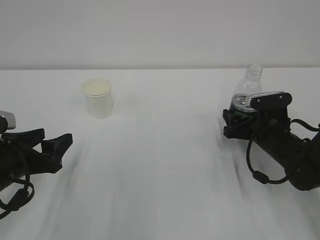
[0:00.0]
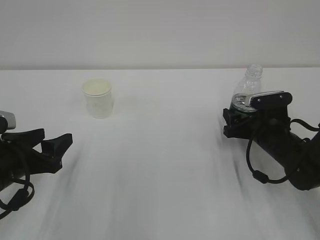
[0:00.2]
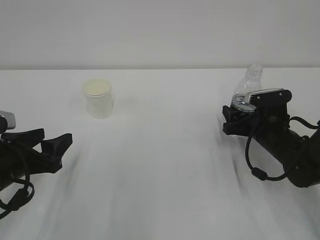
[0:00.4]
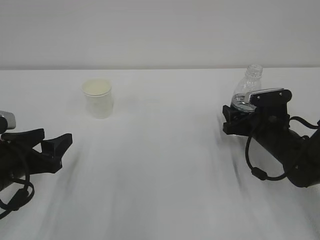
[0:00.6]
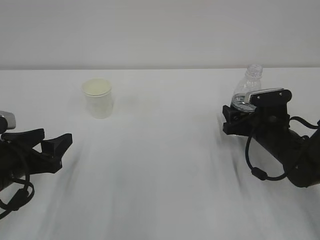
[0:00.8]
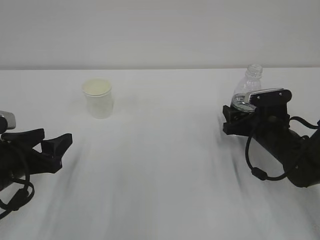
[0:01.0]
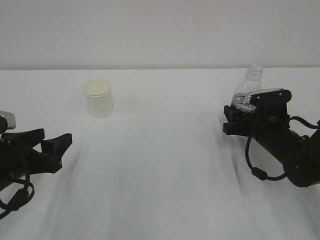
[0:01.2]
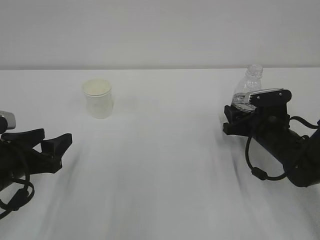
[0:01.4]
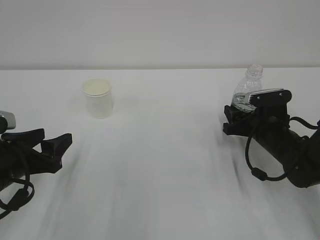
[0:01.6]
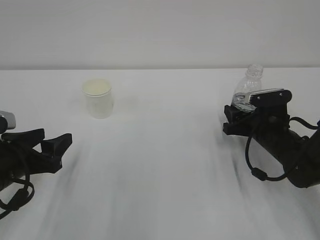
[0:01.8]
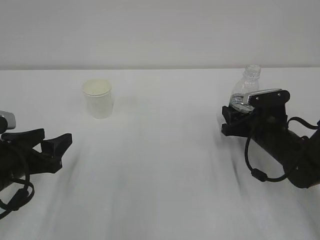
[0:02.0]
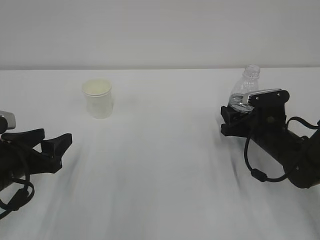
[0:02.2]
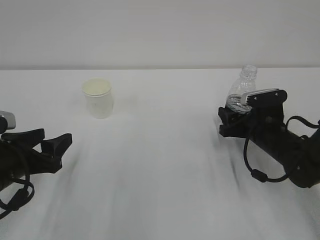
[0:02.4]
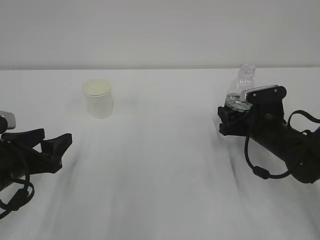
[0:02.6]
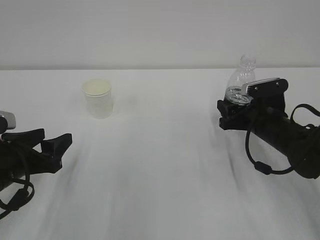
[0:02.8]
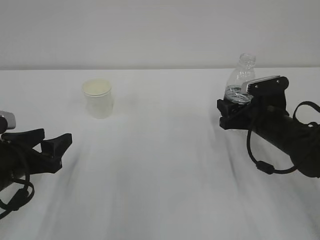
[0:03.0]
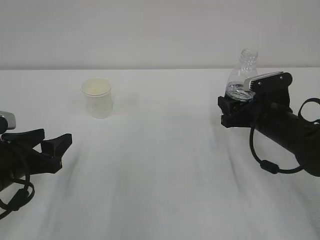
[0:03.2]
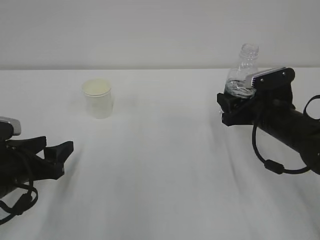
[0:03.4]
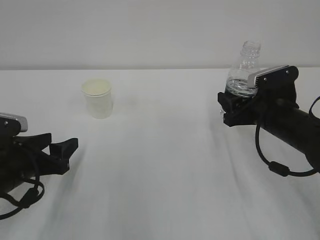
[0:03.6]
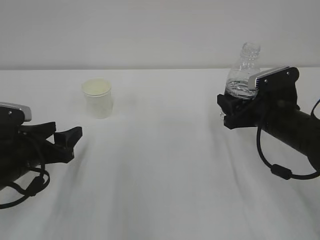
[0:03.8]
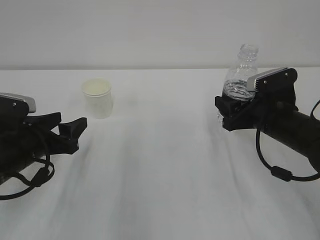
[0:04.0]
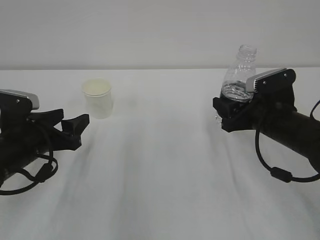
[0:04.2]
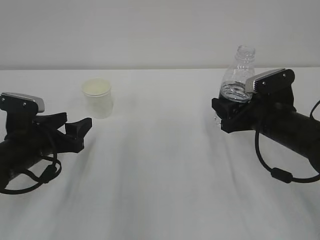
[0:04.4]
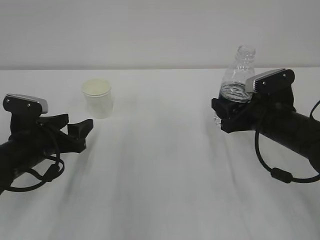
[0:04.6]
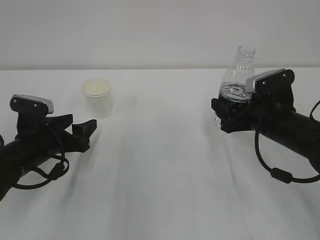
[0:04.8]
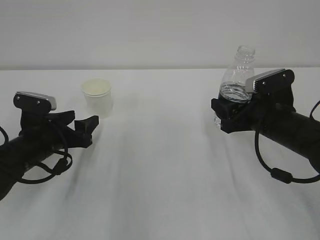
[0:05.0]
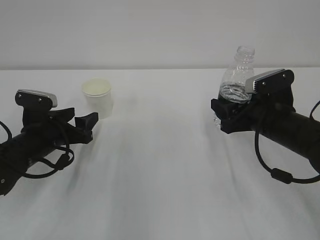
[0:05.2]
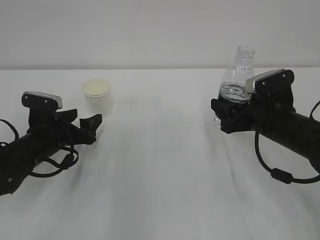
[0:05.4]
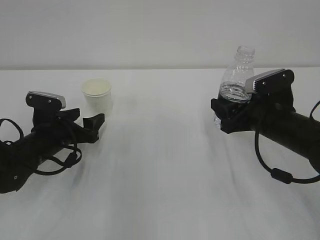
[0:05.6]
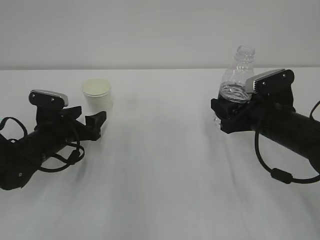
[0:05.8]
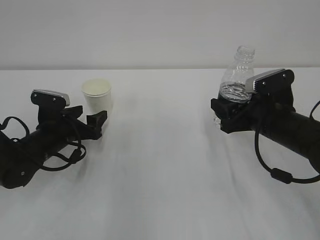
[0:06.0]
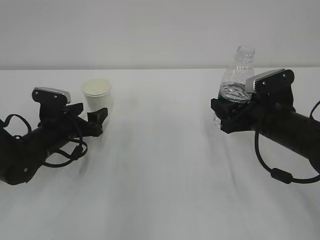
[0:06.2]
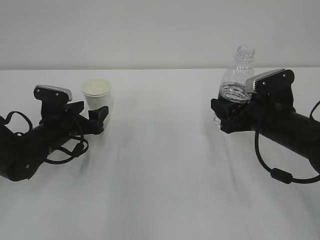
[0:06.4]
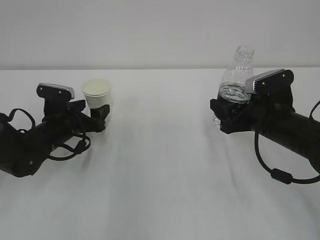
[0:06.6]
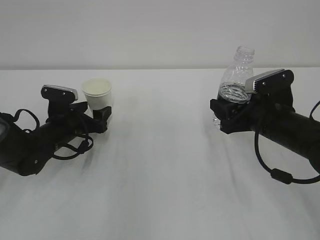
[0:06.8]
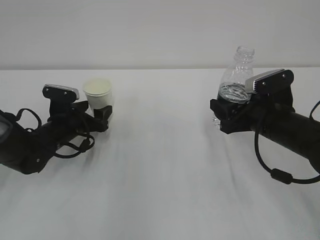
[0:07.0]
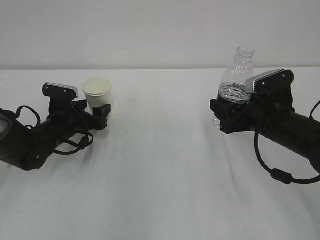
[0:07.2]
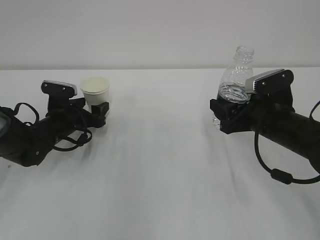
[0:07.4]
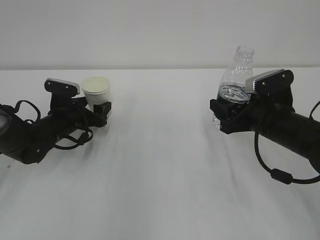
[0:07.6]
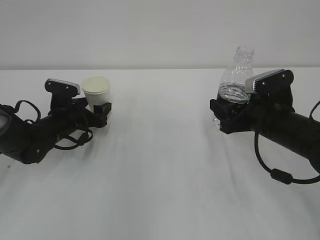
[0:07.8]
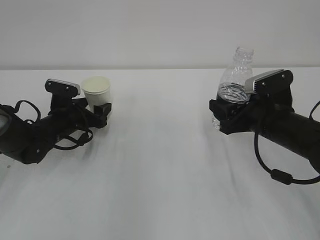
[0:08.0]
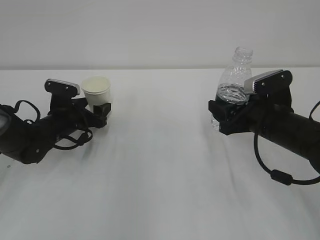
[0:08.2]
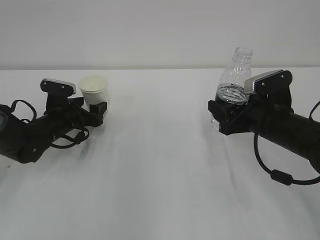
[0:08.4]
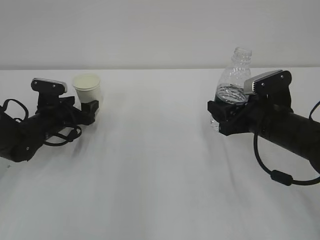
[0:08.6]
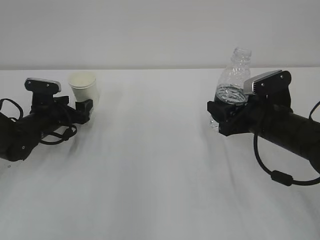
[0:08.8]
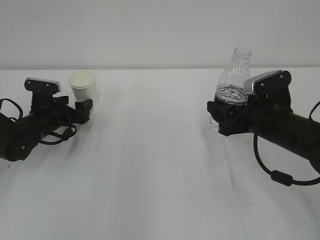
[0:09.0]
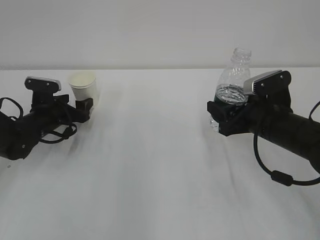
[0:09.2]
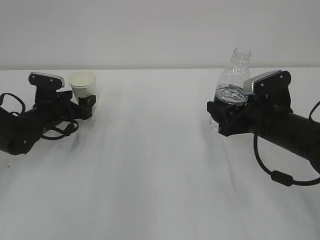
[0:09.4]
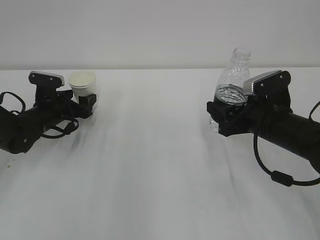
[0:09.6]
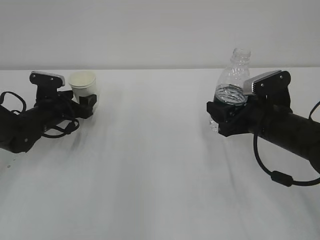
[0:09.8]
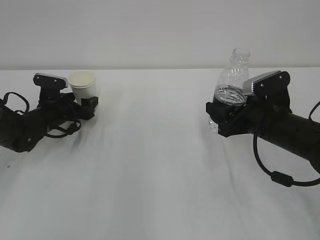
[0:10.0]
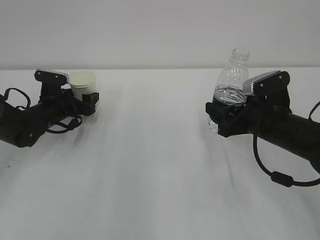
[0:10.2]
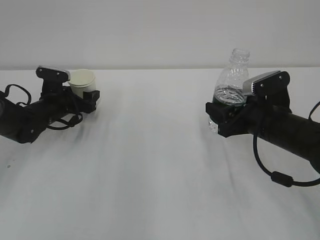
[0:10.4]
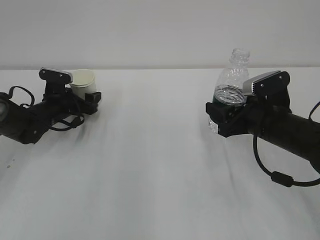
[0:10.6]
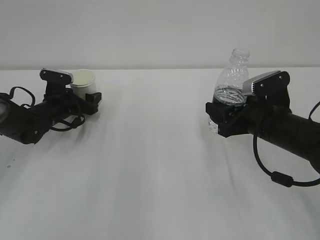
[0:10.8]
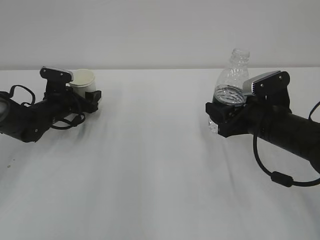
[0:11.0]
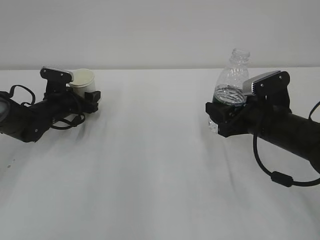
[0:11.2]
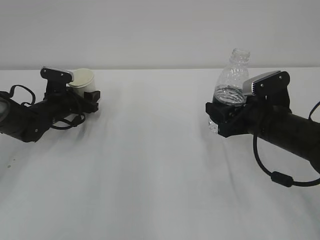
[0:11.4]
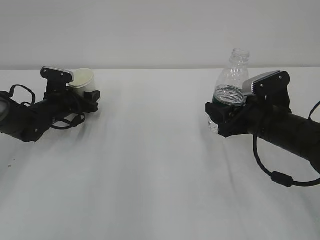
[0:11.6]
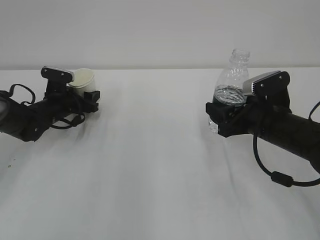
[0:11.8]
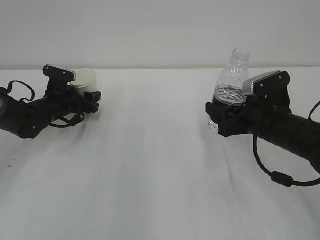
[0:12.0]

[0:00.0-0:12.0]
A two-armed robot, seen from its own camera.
0:00.0 to 0:01.6: The right gripper closes.
0:01.6 to 0:03.0: There are only small adjustments of the grippers.
0:03.0 to 0:04.4: The left gripper shifts approximately 5 cm forward.
0:04.4 to 0:06.0: The left gripper is displaced forward by approximately 5 cm.
0:06.0 to 0:07.6: The left gripper is displaced forward by approximately 5 cm.
0:07.6 to 0:10.4: There are only small adjustments of the grippers.
0:10.4 to 0:12.0: The left gripper closes up.

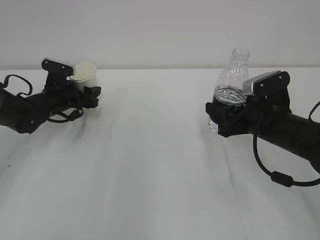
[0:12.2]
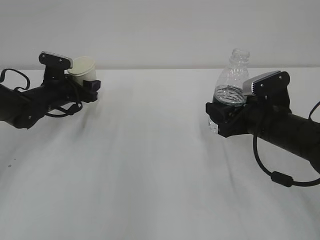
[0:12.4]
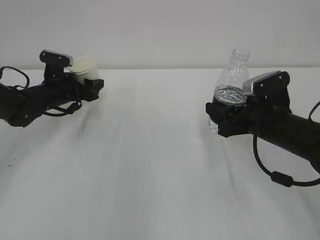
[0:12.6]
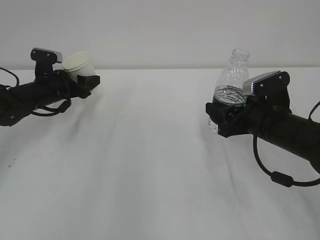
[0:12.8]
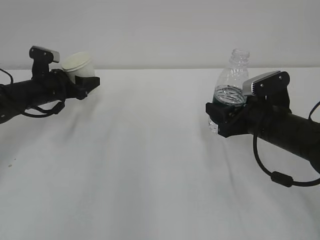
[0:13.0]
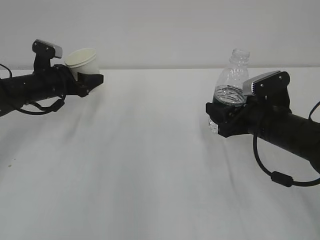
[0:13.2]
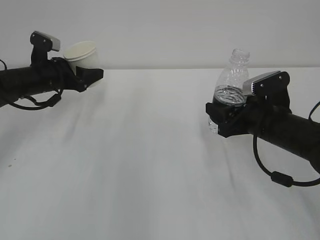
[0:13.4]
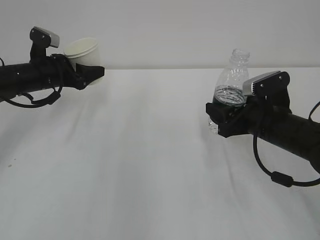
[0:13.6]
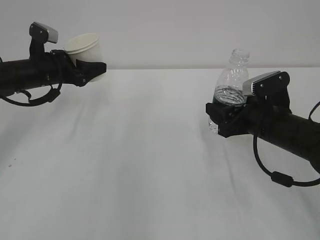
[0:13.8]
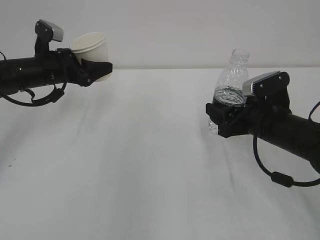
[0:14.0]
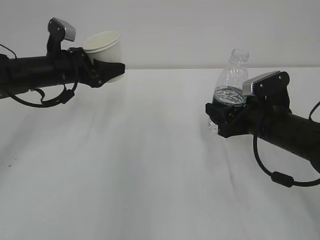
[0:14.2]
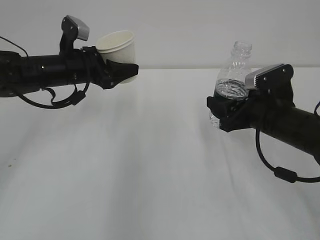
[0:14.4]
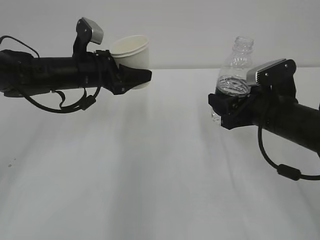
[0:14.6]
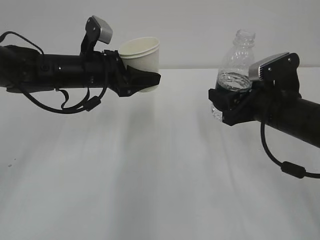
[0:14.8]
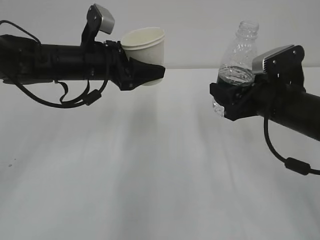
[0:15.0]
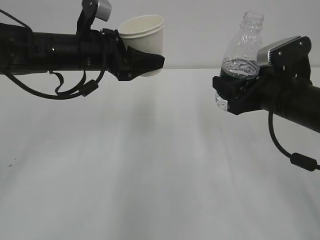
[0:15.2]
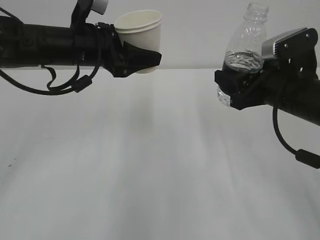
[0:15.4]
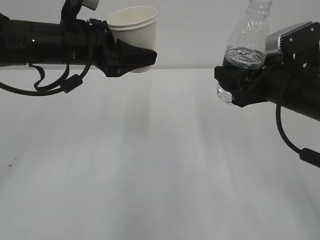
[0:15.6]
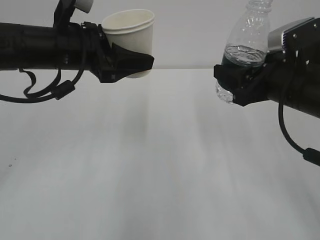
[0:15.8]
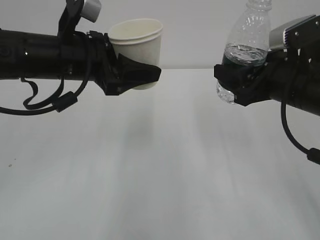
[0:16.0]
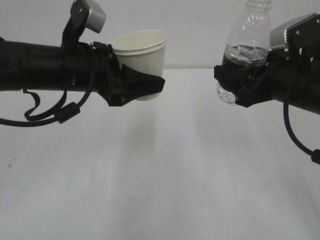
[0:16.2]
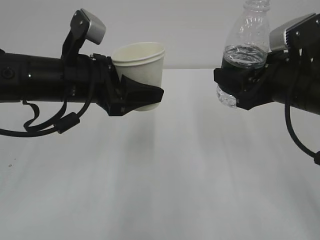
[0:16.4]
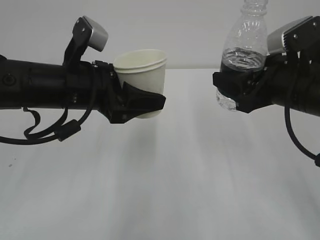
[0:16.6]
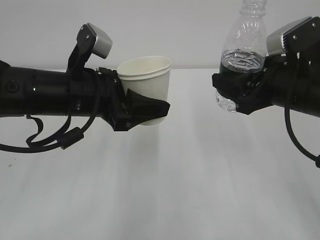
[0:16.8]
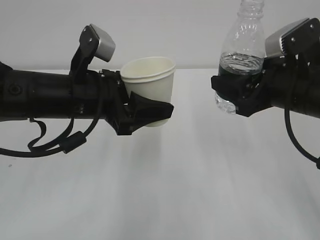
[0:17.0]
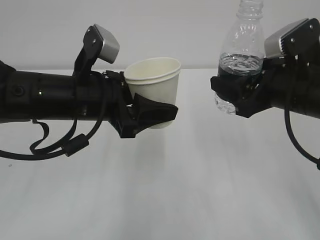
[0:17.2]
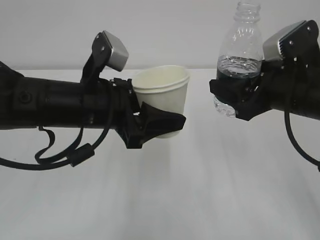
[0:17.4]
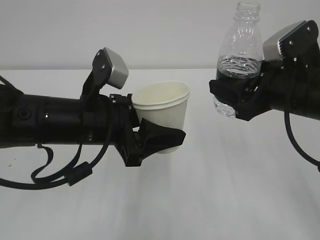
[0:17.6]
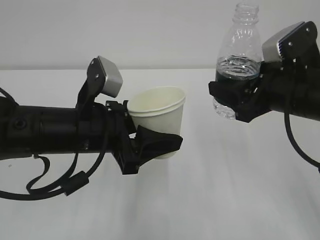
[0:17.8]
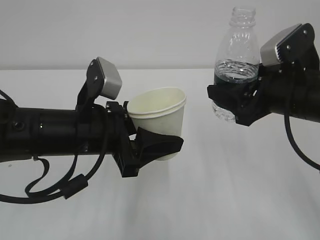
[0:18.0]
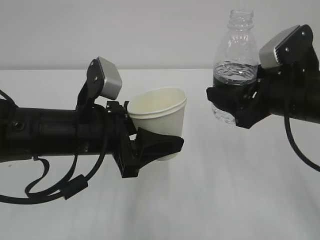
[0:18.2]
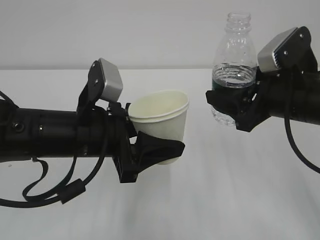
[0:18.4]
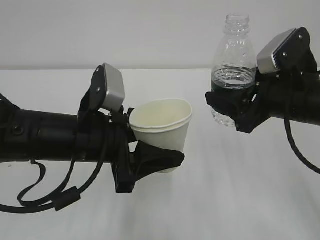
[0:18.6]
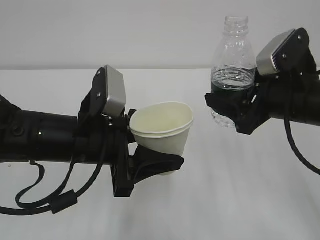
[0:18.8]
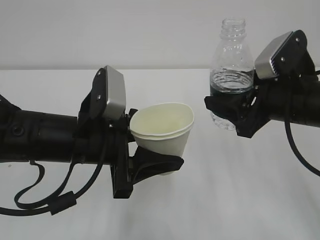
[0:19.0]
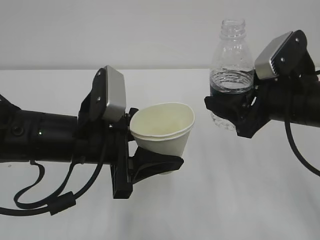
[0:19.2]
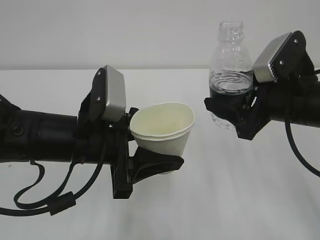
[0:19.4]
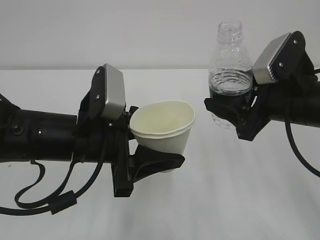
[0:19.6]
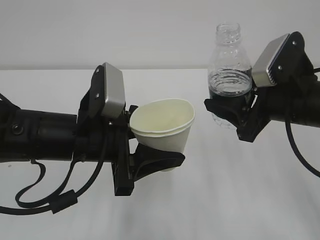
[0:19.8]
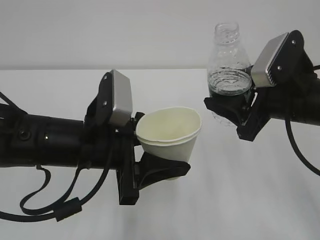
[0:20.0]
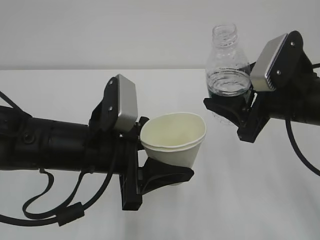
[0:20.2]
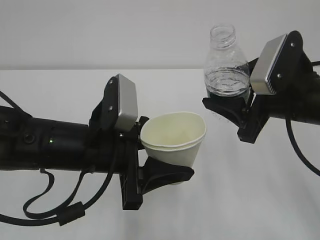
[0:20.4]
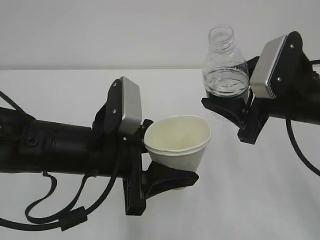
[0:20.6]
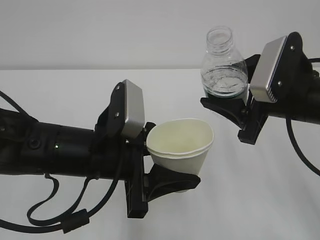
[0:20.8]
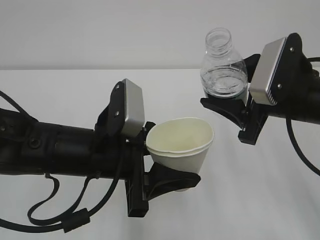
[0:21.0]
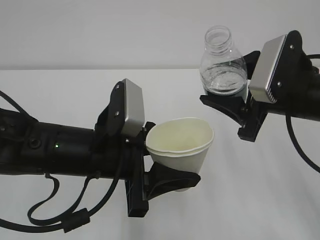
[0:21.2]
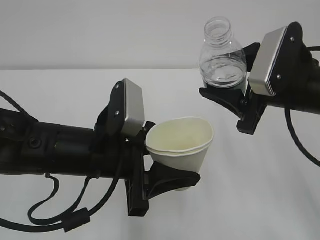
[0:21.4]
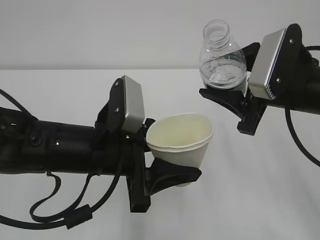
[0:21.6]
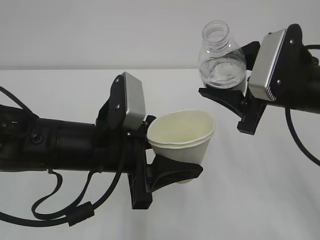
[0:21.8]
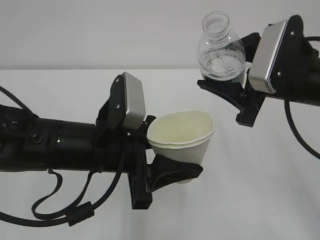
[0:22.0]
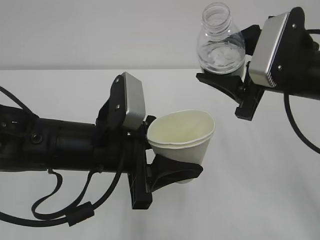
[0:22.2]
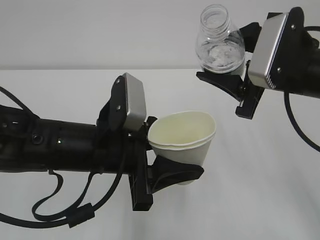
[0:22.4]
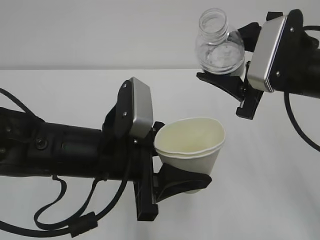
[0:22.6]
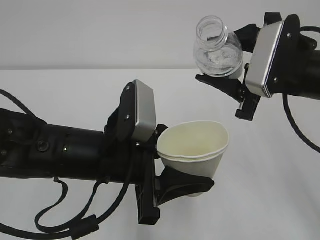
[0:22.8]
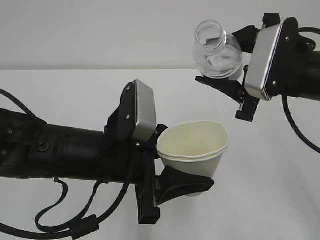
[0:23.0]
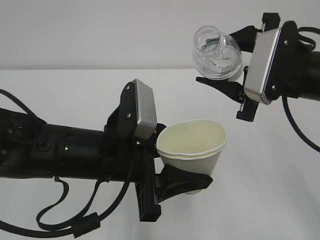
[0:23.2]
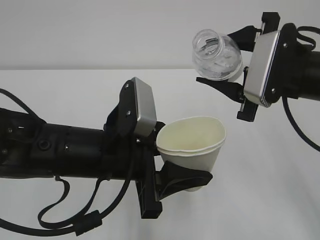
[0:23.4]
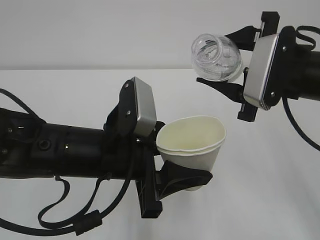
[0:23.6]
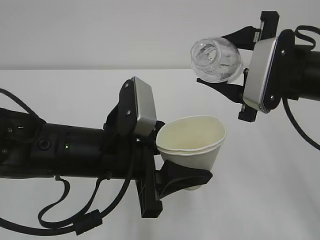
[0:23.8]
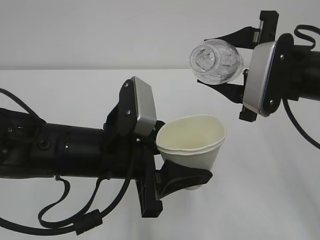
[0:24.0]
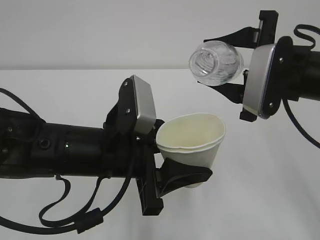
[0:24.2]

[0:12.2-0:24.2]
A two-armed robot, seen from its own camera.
0:12.2 to 0:13.8: The left gripper goes roughly 10 cm upward.
0:13.8 to 0:15.2: The right gripper shifts some 5 cm upward. The left gripper is displaced to the right, upward and backward by some 15 cm.
0:15.2 to 0:16.6: The left gripper travels backward by roughly 10 cm.
0:16.6 to 0:18.2: The left gripper travels backward by about 5 cm.
0:18.2 to 0:19.8: The grippers move only a little.
0:22.6 to 0:24.2: There are only small adjustments of the grippers.
